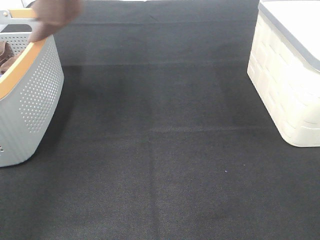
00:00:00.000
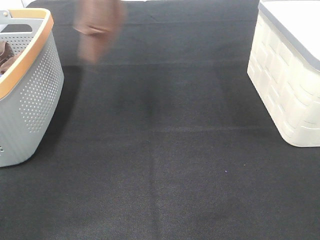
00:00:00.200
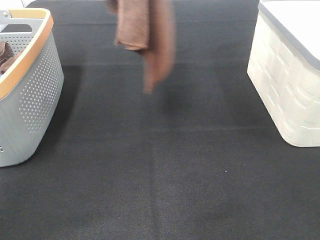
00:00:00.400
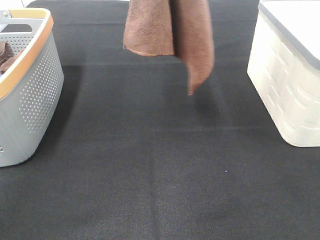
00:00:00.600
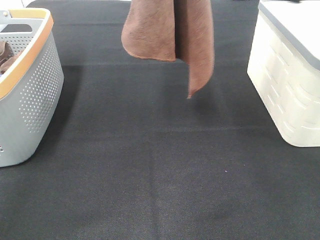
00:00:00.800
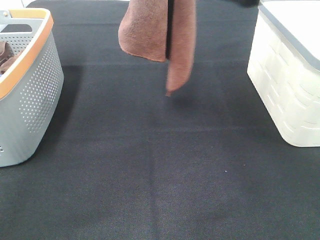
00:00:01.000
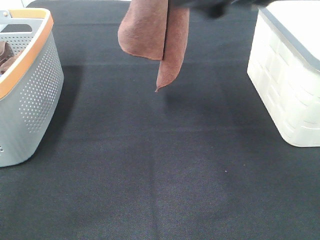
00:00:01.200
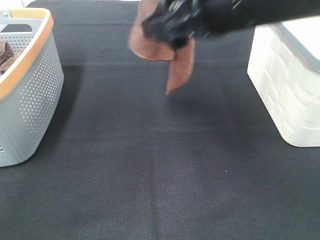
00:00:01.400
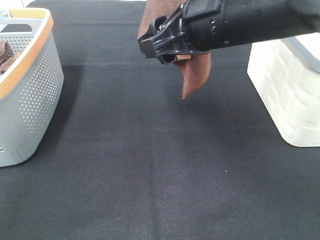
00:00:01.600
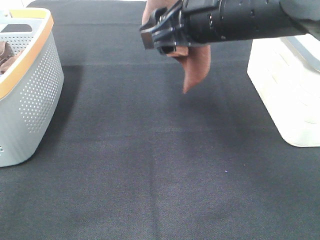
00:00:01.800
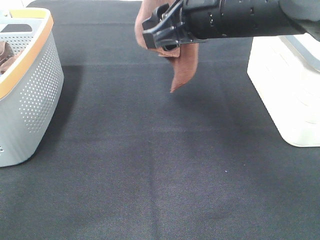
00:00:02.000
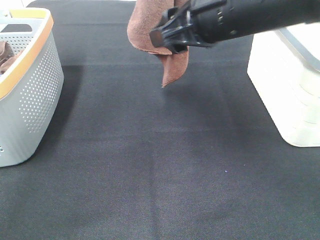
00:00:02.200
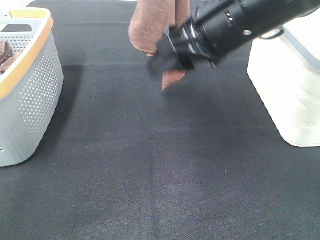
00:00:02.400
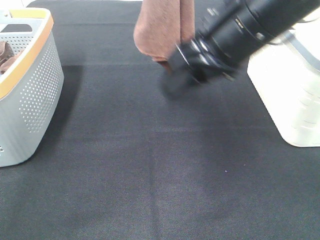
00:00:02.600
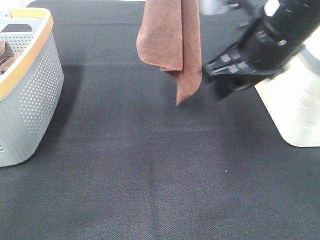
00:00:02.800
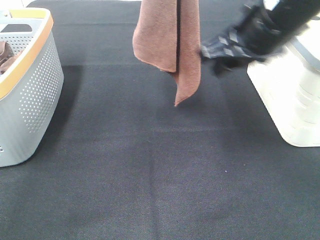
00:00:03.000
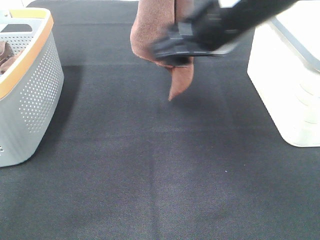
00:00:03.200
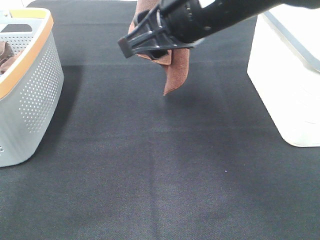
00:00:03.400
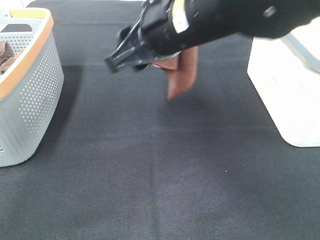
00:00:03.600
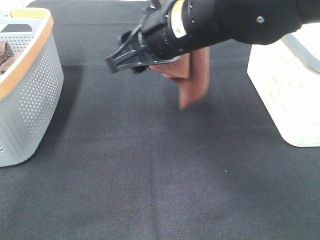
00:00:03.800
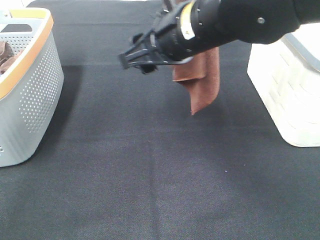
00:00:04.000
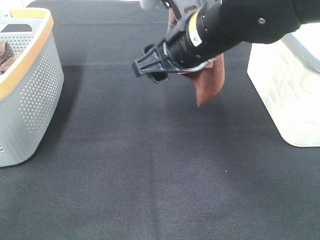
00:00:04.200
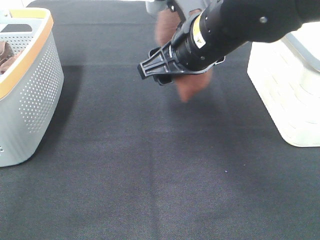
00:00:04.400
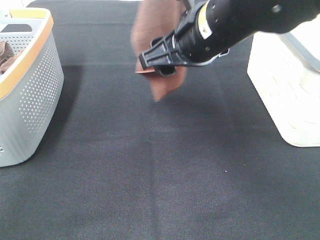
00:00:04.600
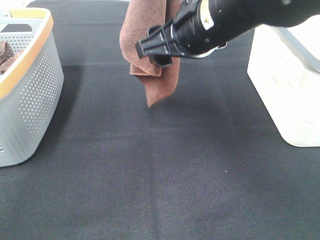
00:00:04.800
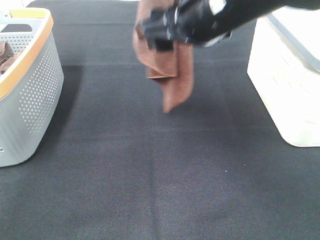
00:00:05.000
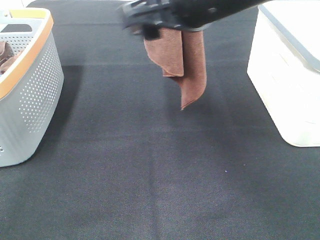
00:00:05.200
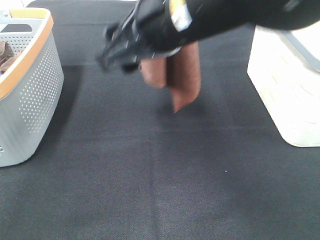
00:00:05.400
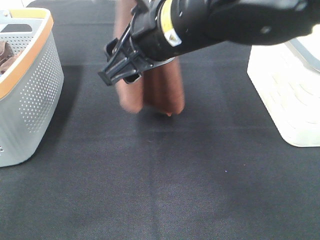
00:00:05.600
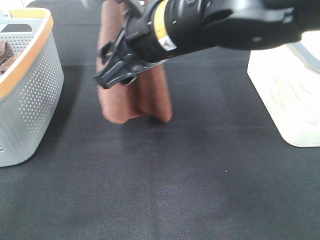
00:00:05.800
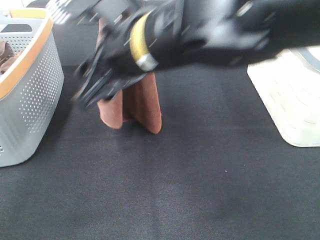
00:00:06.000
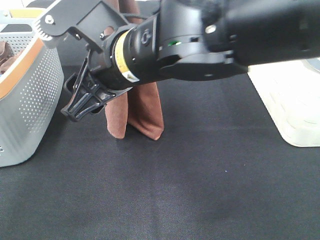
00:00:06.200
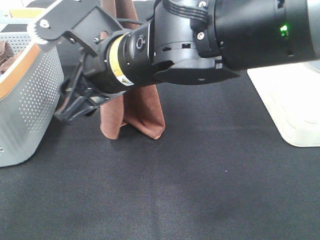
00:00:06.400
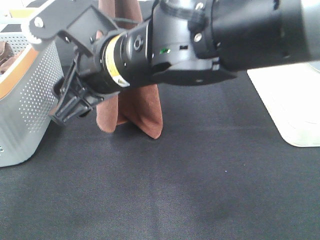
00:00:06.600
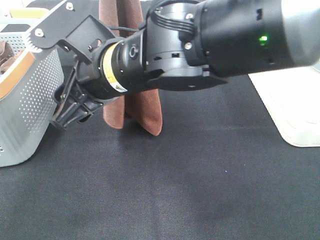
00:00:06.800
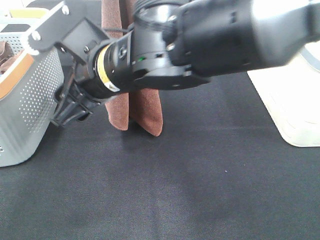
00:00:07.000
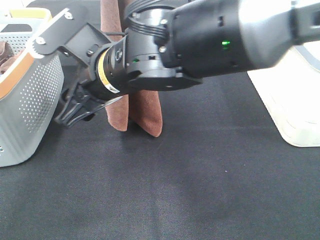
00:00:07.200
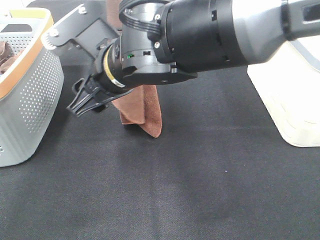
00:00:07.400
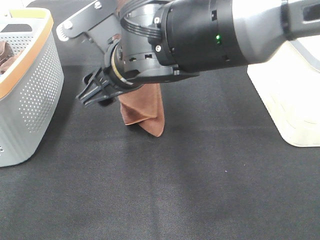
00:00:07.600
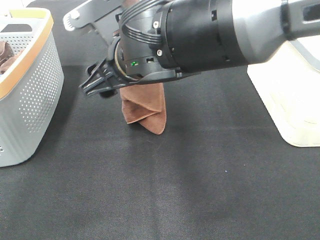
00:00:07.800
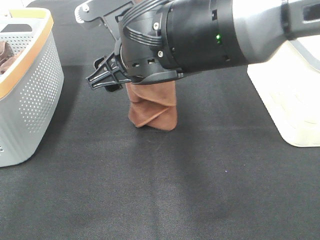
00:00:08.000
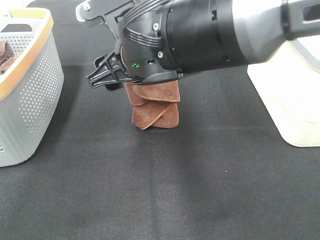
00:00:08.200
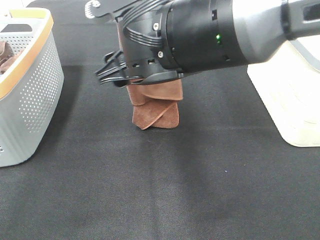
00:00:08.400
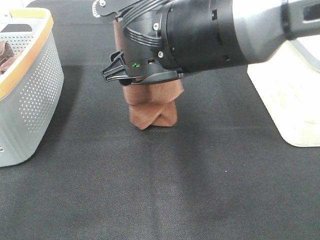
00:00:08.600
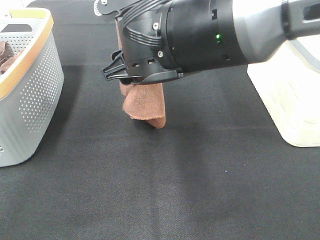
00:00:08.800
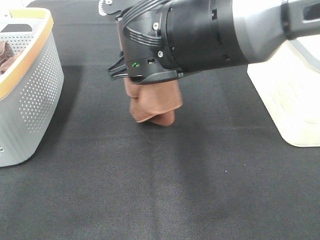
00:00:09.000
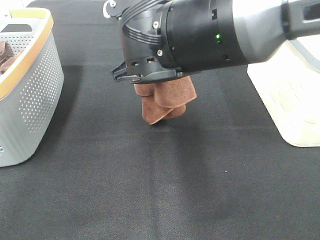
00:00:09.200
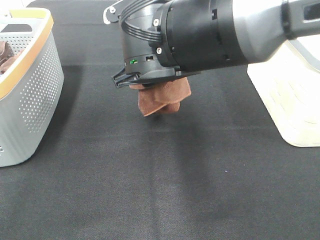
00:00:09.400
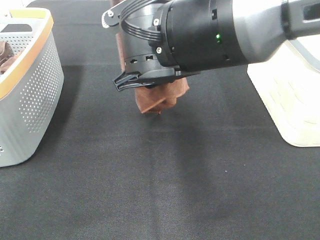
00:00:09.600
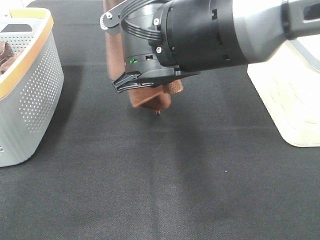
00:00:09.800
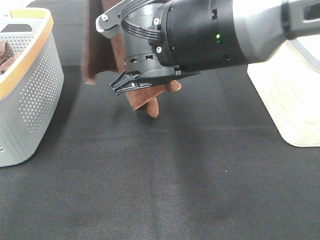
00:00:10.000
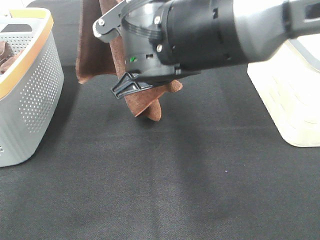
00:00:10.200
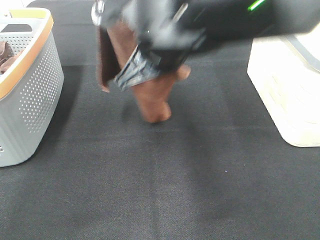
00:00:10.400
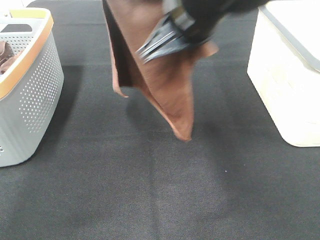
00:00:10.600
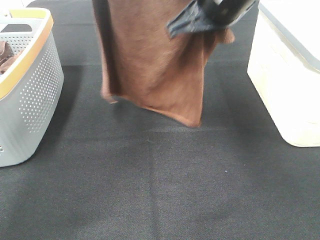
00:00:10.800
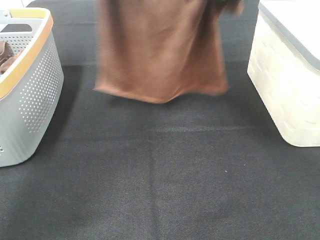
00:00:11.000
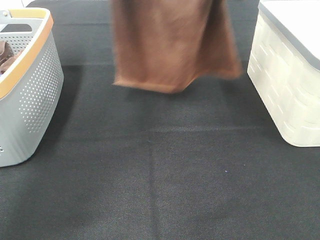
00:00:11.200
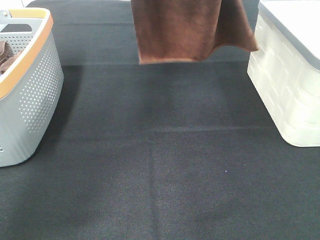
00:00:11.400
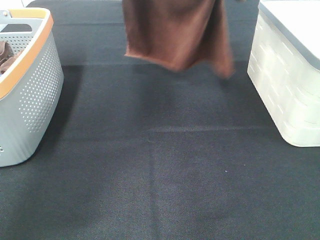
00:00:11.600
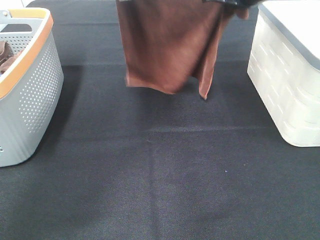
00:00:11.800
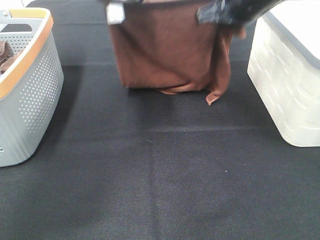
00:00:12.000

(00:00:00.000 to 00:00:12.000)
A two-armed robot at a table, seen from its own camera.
Task of the whole recording: Remove the towel and place it.
Step, 00:00:00.000 - 00:00:07.400: Right hand: grab a corner of the brown towel and straighten it.
Step, 00:00:07.600 - 00:00:09.000: Right hand: spread the brown towel flat on the table.
Step, 00:00:07.600 - 00:00:09.600: Left hand: spread the brown towel flat on the table.
00:00:00.000 - 00:00:01.600: The left gripper moves to the right, roughly 15 cm. The right gripper is displaced forward, to the left and downward by about 25 cm.
00:00:03.000 - 00:00:04.400: The right gripper moves to the left, some 5 cm.
00:00:04.400 - 00:00:06.000: The right gripper moves to the left and backward, some 10 cm; the left gripper moves approximately 5 cm.
00:00:06.000 - 00:00:07.600: The right gripper shifts by about 5 cm.
00:00:09.000 - 00:00:10.400: The right gripper closes up.
00:00:10.400 - 00:00:12.000: The right gripper travels to the right and forward by some 20 cm; the left gripper moves downward and forward, approximately 15 cm.

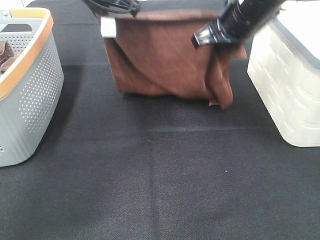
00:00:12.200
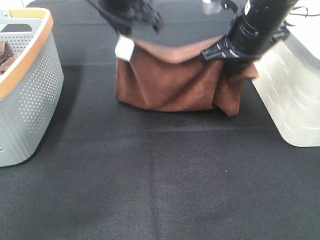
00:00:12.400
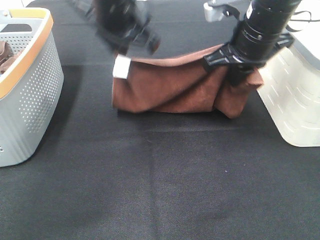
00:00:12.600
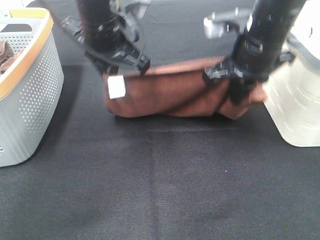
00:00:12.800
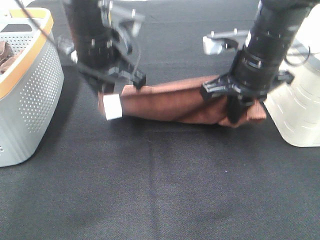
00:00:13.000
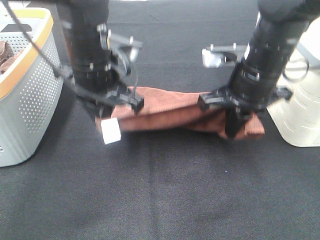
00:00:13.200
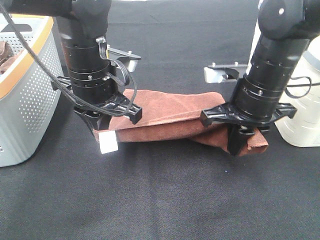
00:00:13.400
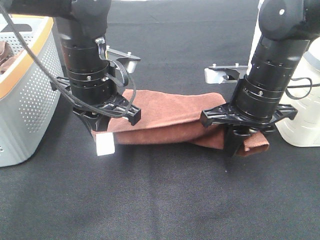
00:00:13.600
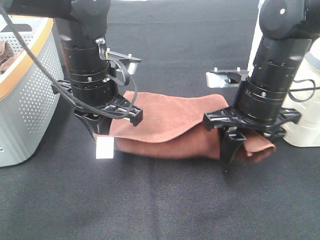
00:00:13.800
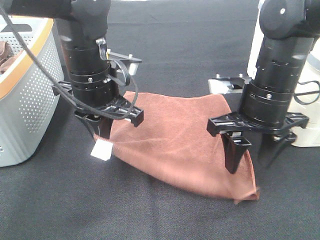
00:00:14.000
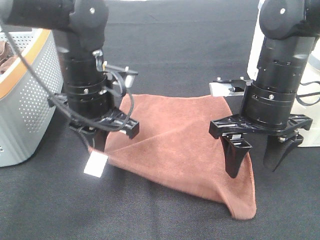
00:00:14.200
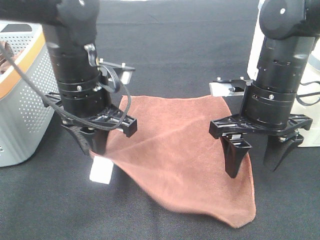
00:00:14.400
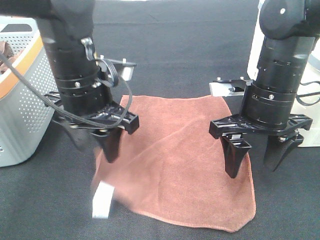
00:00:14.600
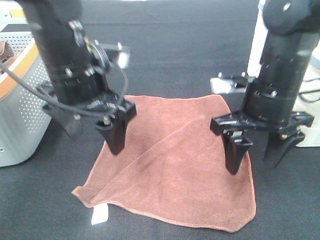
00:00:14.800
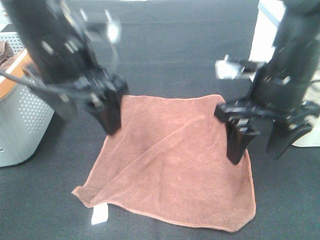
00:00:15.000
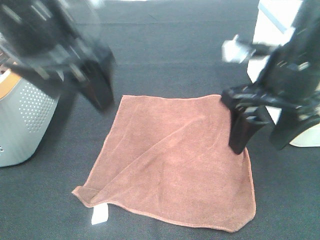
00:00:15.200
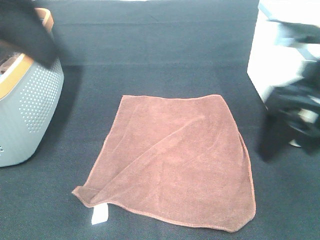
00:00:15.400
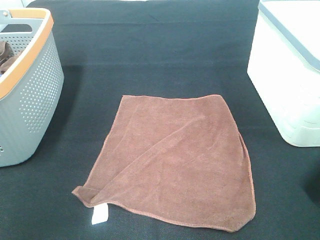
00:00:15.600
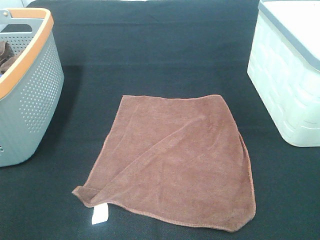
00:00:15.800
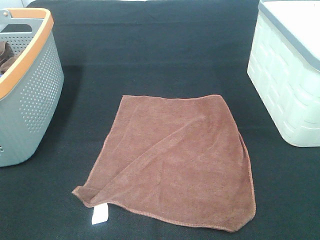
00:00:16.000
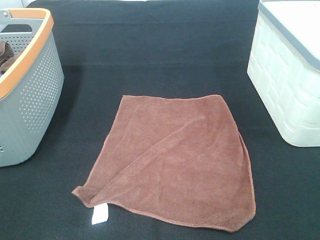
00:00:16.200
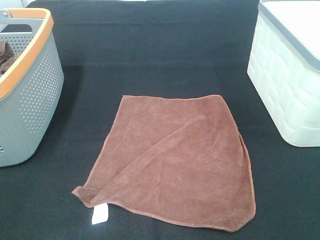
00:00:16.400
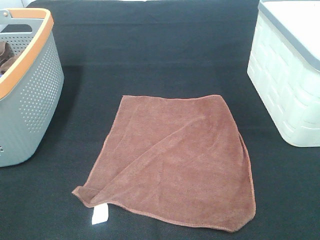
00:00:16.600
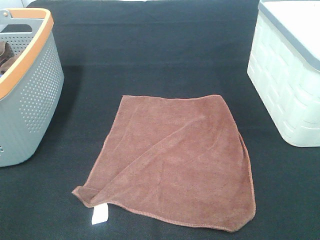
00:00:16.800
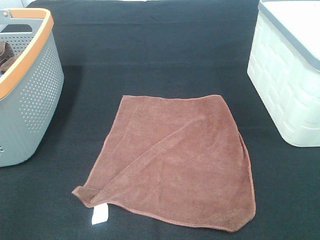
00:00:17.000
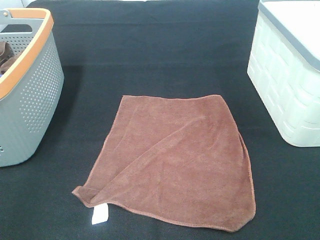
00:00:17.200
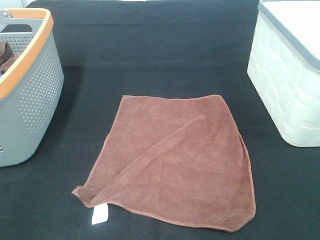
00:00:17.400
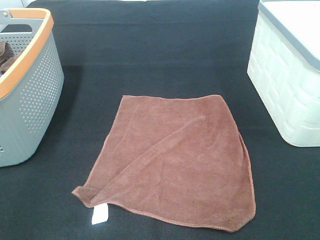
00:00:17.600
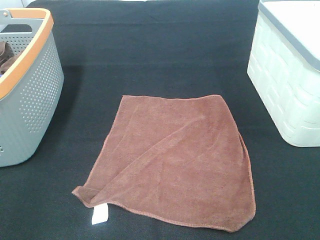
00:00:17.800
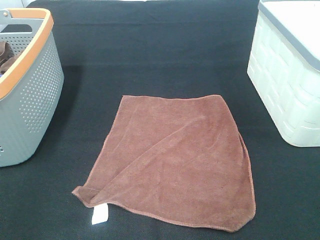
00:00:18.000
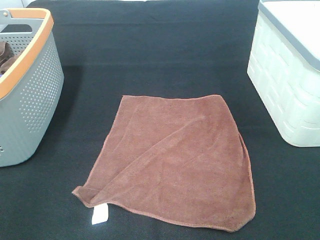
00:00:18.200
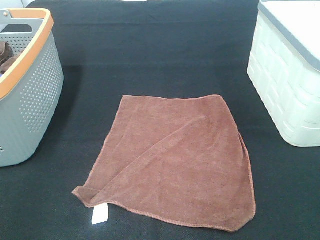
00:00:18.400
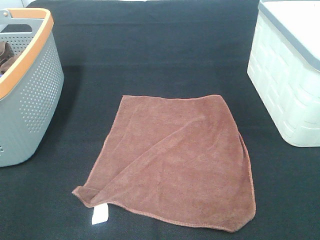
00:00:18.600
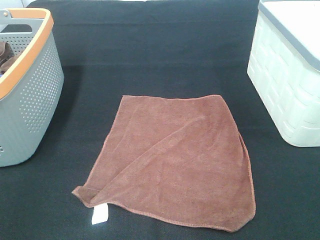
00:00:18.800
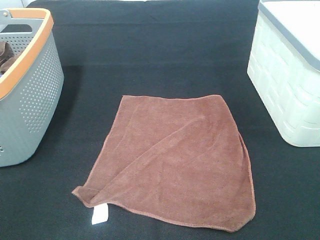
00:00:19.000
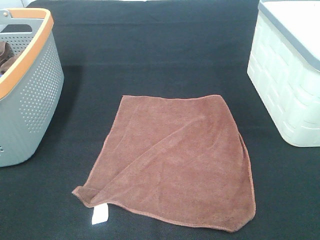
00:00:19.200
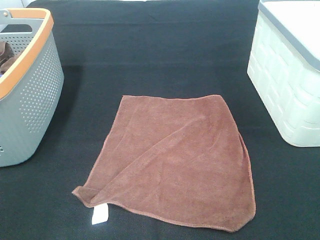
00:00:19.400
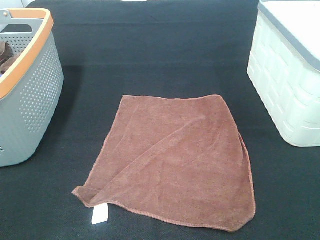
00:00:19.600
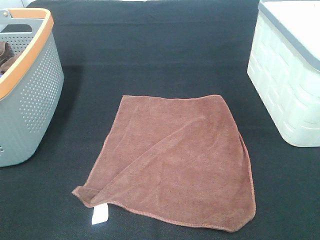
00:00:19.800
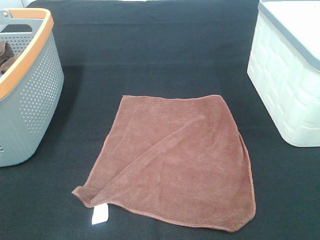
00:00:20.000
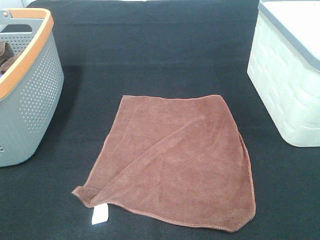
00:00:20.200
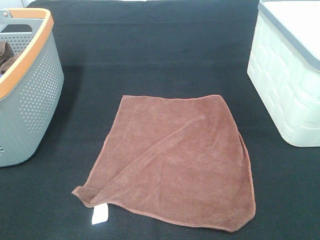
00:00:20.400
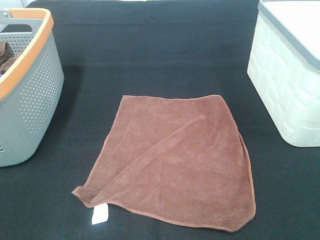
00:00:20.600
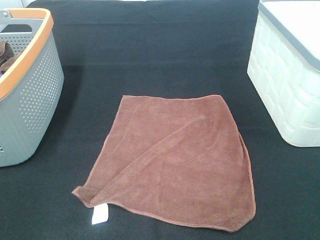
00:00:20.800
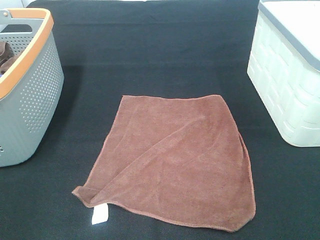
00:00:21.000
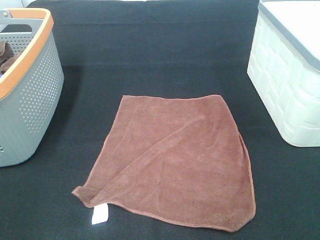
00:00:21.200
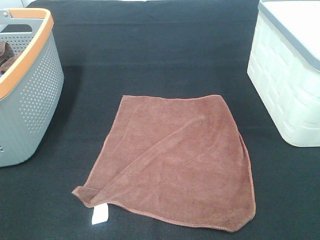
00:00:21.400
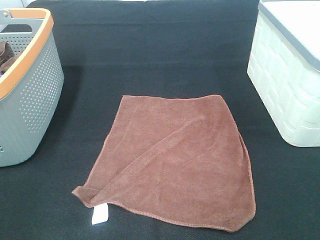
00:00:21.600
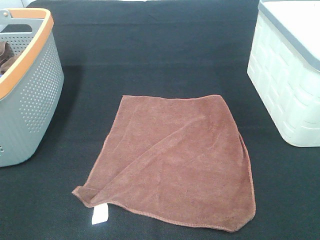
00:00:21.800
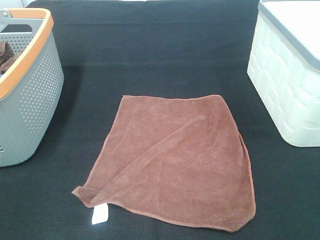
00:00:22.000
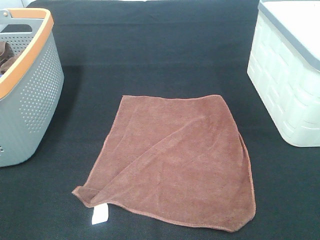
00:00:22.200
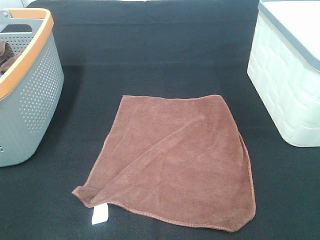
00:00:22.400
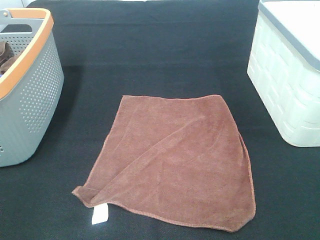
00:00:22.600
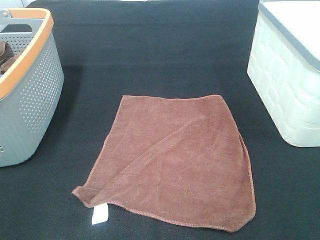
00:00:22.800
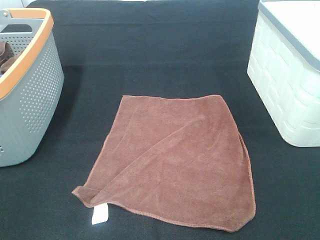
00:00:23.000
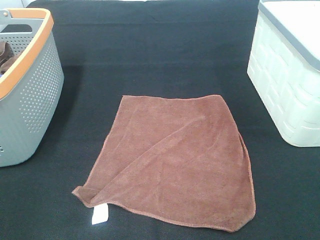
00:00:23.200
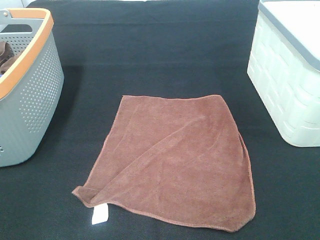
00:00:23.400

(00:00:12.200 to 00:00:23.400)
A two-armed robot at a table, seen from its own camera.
Task of the whole recording: Remove the towel and place it.
00:00:12.200 - 00:00:13.800: The right gripper heads backward and downward, covering approximately 10 cm, and opens. Meanwhile the left gripper goes some 15 cm downward and backward.
00:00:13.800 - 00:00:15.400: The left gripper moves upward, backward and to the left, roughly 25 cm, and opens up. Meanwhile the right gripper shifts some 15 cm upward and backward.
00:00:15.400 - 00:00:17.000: The right gripper shifts about 20 cm backward and to the right. The left gripper shifts approximately 25 cm backward, downward and to the left.
00:00:21.800 - 00:00:23.400: Neither gripper changes place.
